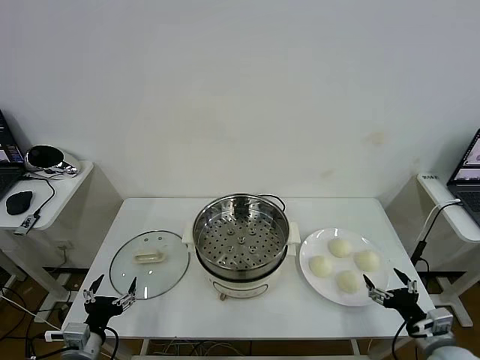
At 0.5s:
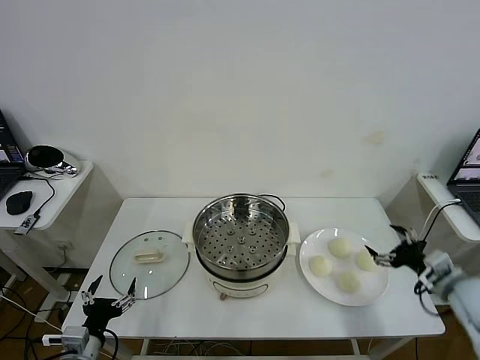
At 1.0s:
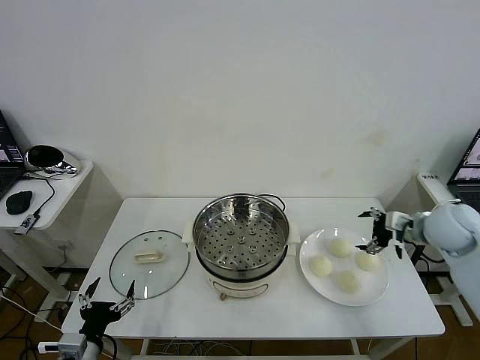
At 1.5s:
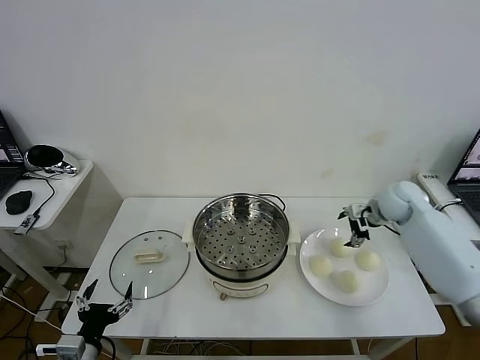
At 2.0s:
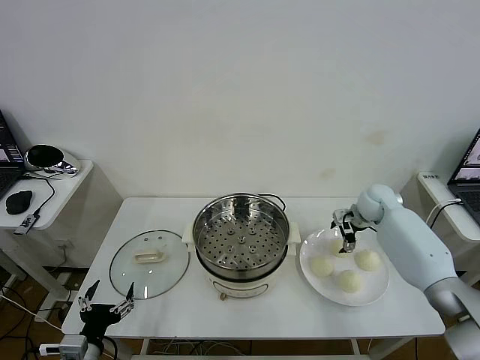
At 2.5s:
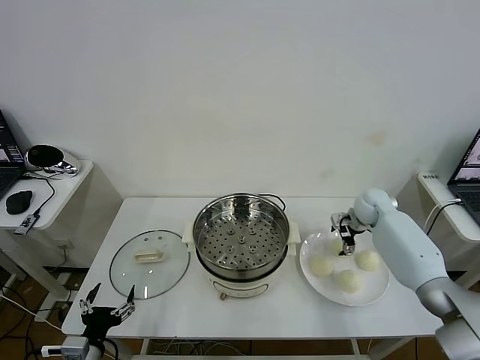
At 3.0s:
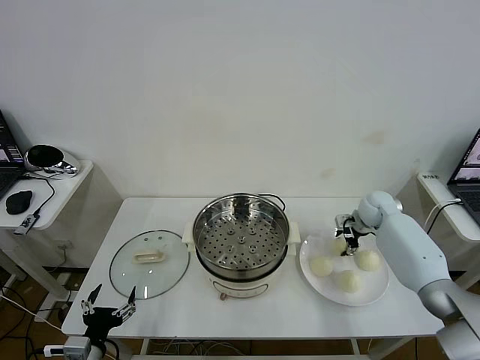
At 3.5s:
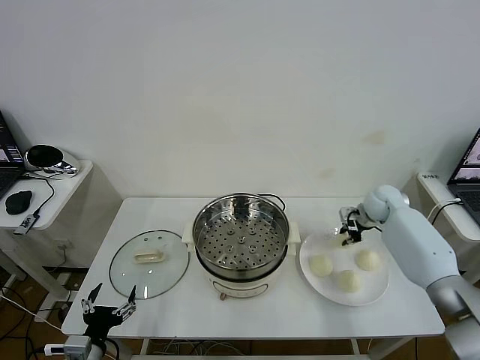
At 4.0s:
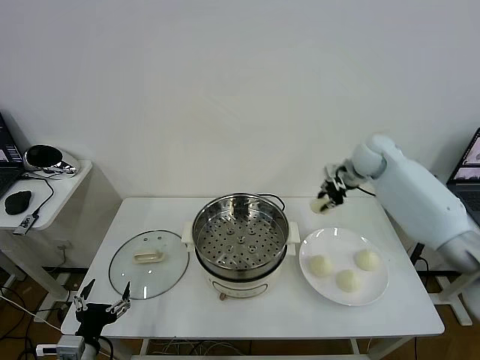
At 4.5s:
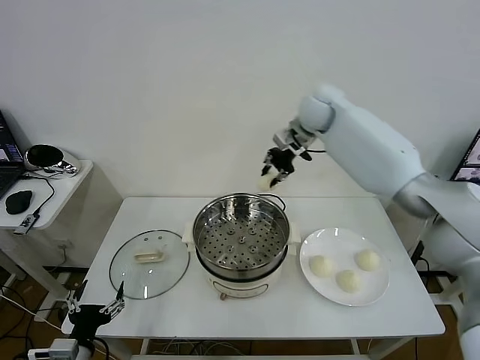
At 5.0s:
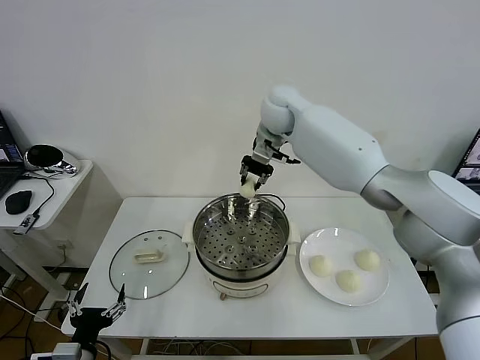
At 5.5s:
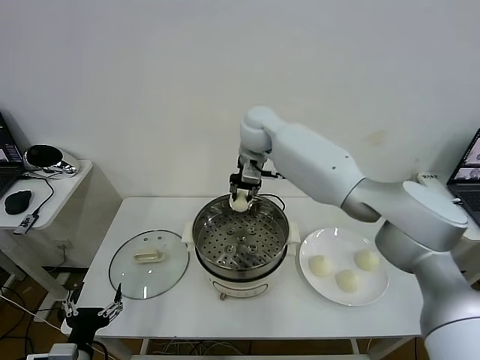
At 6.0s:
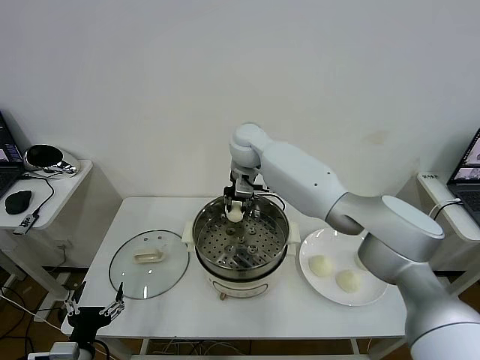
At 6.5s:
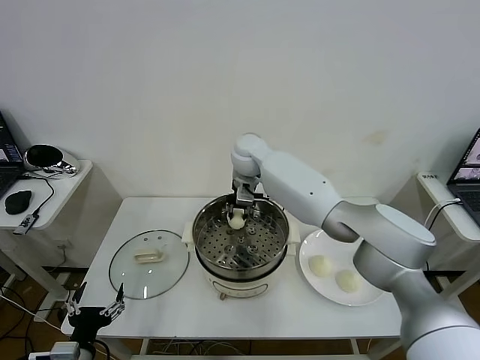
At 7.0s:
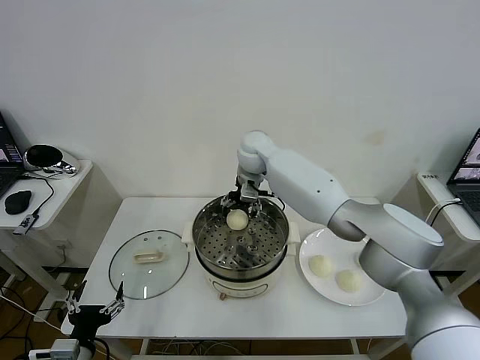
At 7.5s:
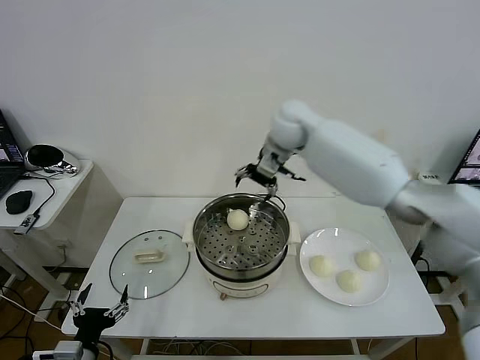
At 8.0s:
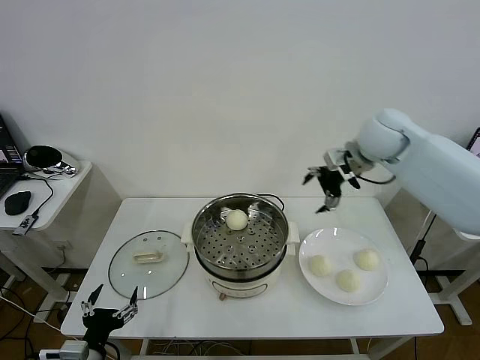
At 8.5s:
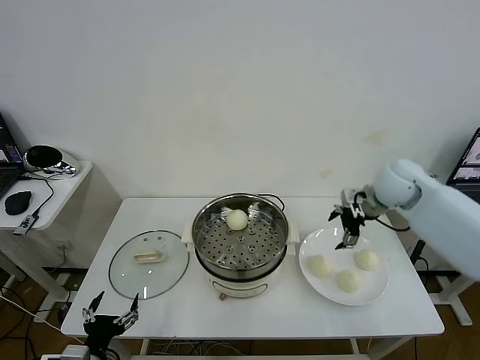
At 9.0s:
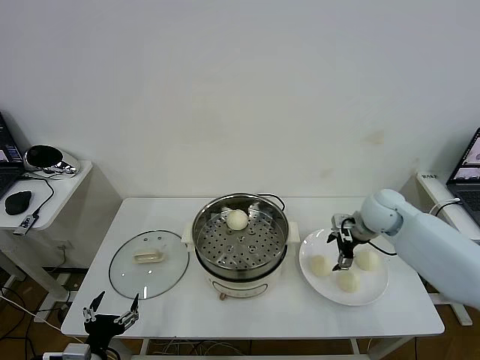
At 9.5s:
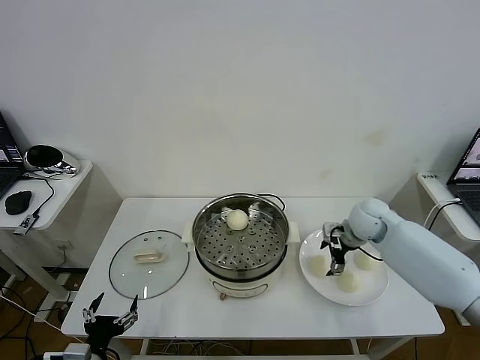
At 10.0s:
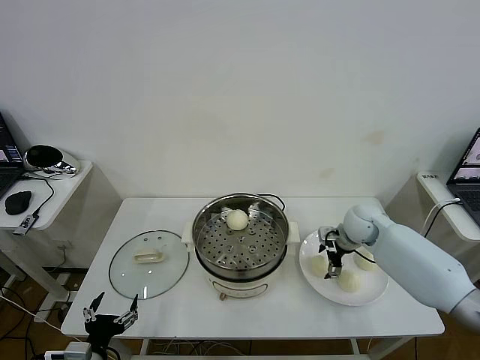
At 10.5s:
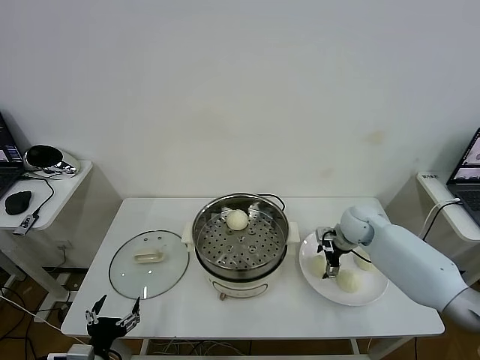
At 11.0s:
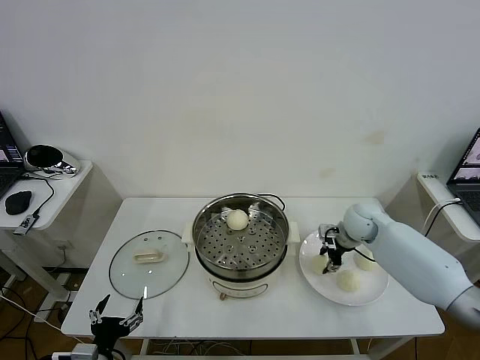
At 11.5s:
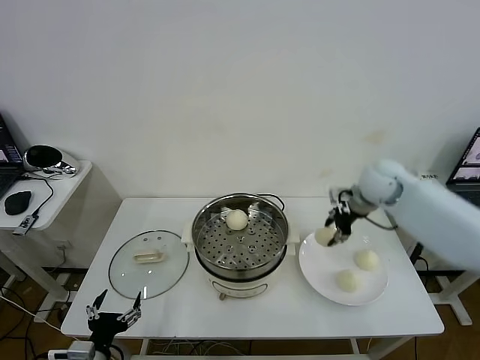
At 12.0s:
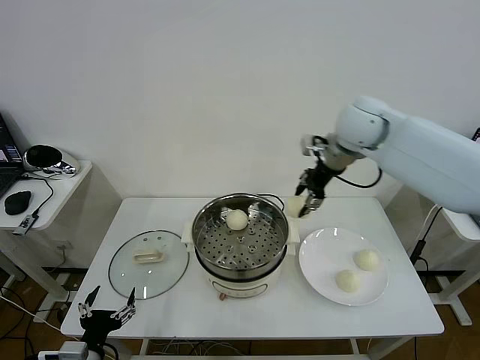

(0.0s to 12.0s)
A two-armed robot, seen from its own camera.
Task of the whole recording: take steamed baozi put them in steamer then cover it.
Step, 0.0s - 3.0s: Grasp the baozi in the plate with right gripper.
Step, 3.5s - 7.0s: Place the baozi on the steamer with right gripper.
Step, 7.5s - 10.5s: Grasp the baozi in the plate with right gripper.
2.0s - 4.0s: The right gripper travels upward and to the left by some 20 cm, and closes up.
4.0s - 6.0s: The right gripper is displaced to the left by some 25 cm.
6.0s - 8.0s: The right gripper travels to the right by some 30 cm, and opens up.
8.0s - 10.0s: The right gripper is displaced downward by approximately 20 cm.
10.0s - 12.0s: The right gripper shifts approximately 25 cm upward, and closes.

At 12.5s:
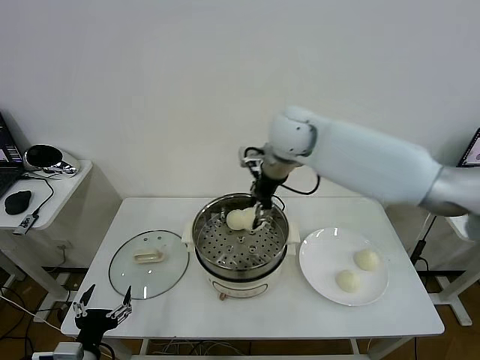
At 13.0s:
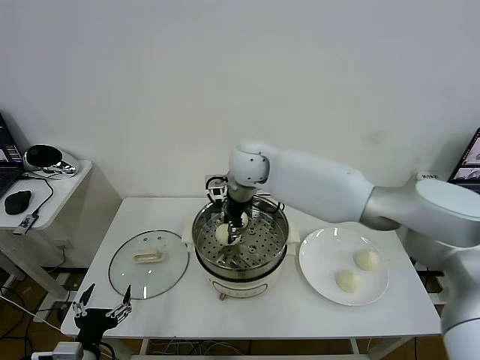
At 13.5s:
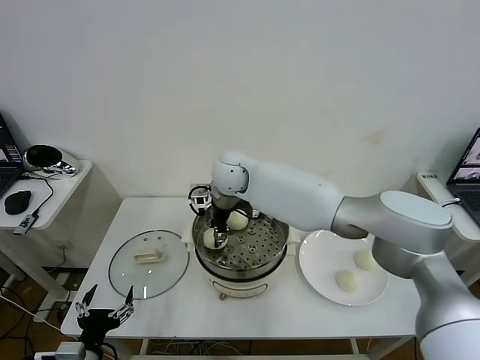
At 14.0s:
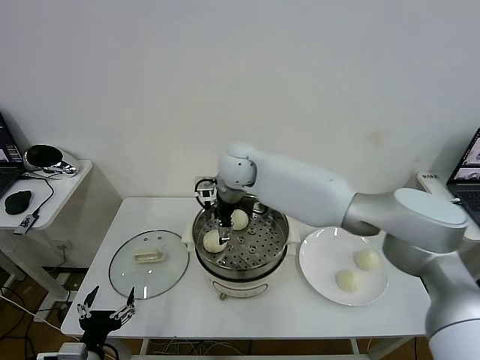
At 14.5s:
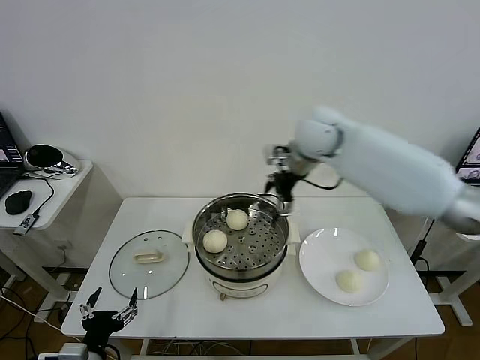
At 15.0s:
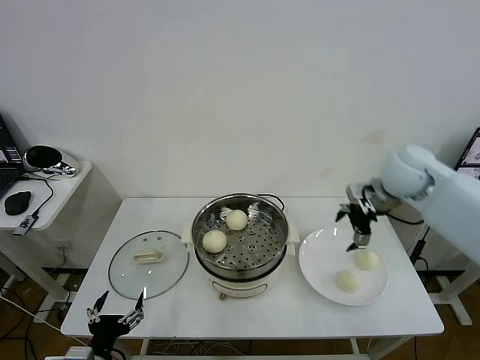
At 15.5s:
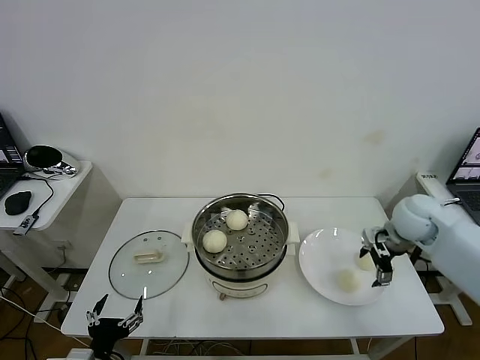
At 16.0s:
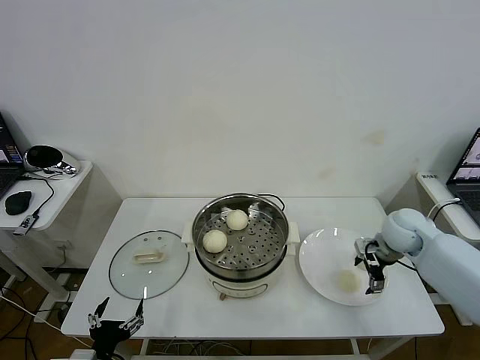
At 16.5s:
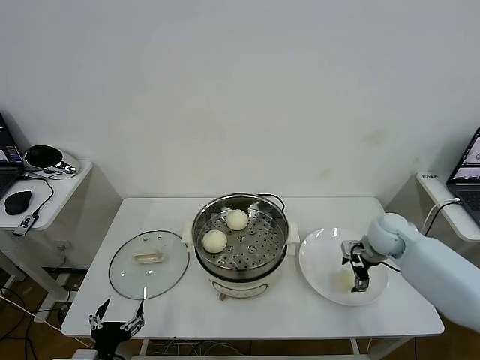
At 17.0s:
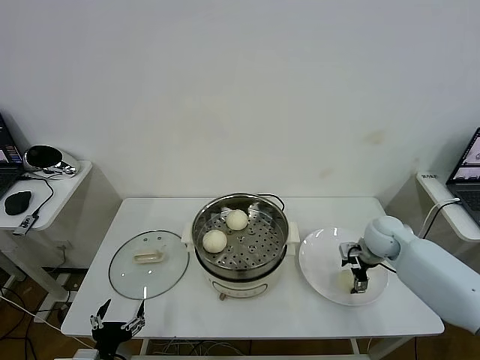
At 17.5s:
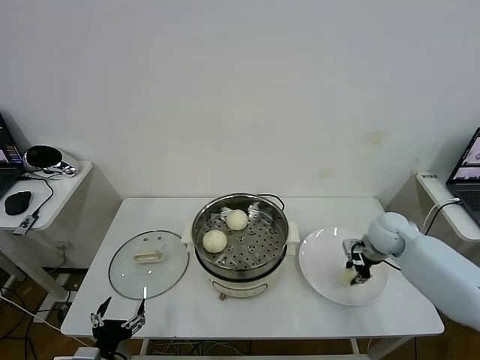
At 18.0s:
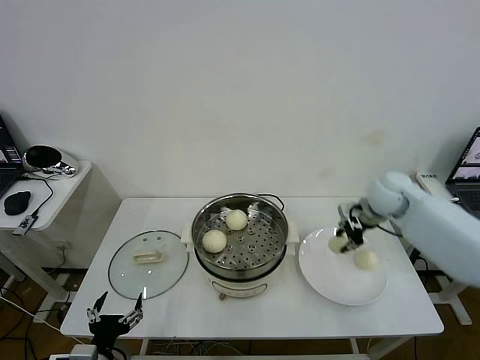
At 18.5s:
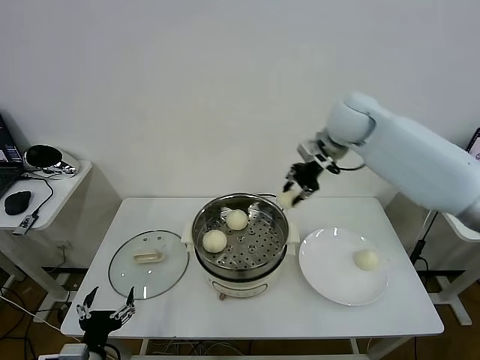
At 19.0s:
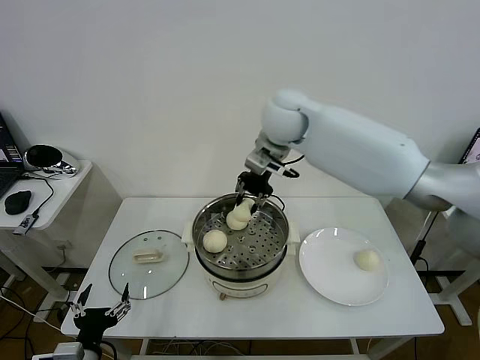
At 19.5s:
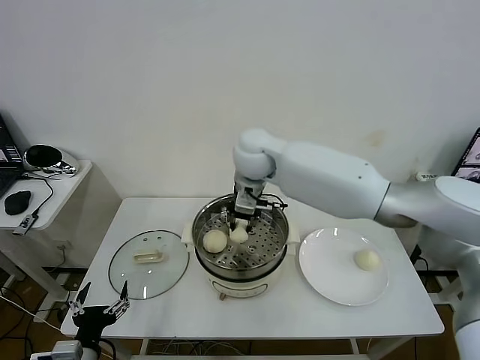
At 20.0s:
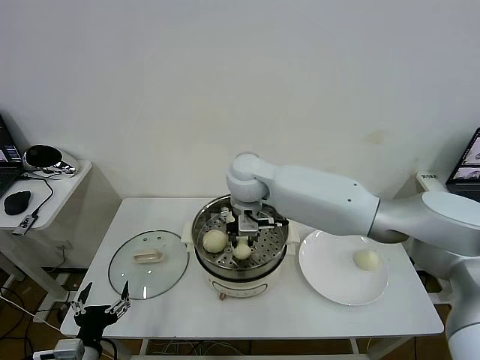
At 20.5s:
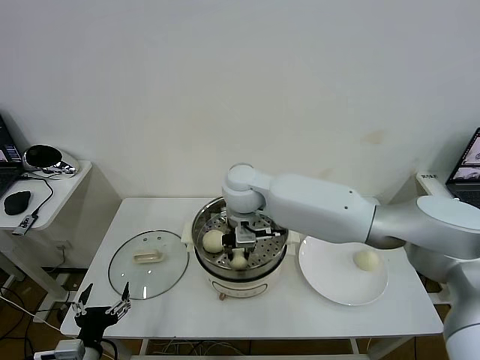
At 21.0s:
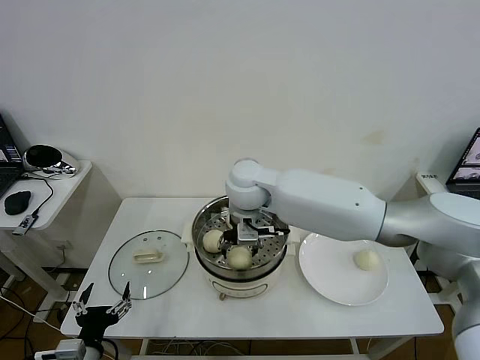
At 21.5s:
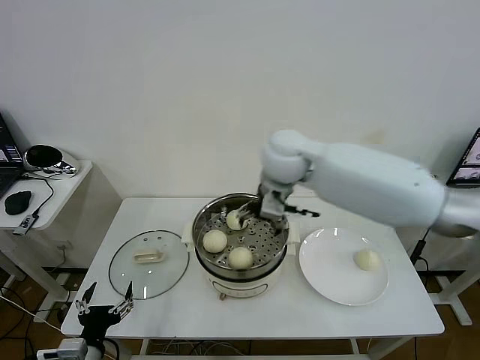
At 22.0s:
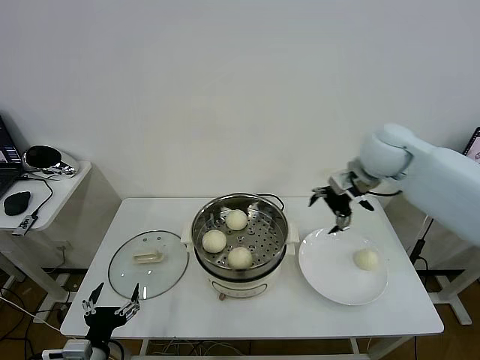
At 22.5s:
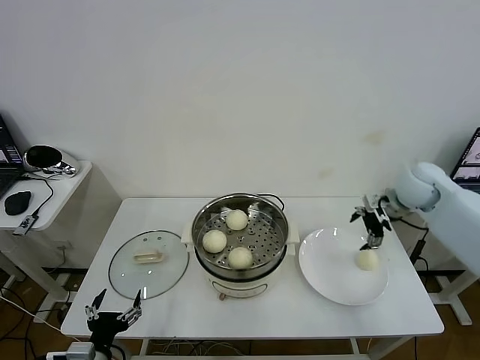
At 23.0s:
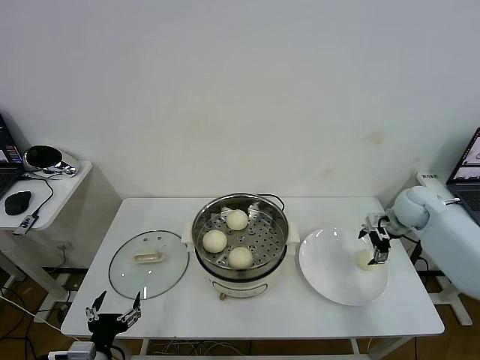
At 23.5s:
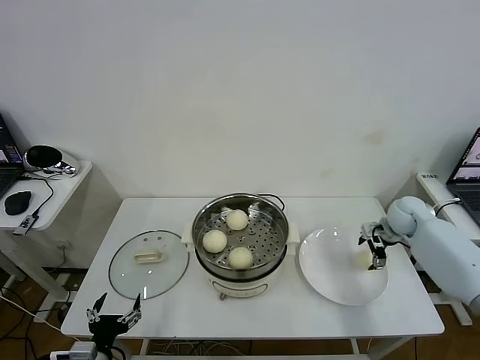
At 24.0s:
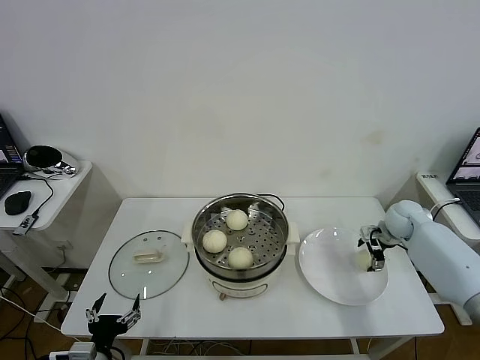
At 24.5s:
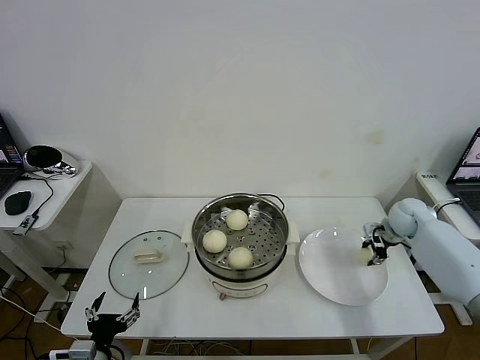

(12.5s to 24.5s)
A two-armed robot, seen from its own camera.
Task of the whole recording: take steamed baozi put them in steamer then cover it.
Step, 14.5s - 17.0s: Grasp the baozi in the plate with right gripper.
Step, 17.5s - 21.0s: Place the baozi on the steamer with right gripper.
Step, 21.5s - 24.0s: Grasp the baozi in the plate with right gripper.
12.5s - 14.5s: The right gripper heads to the right, covering some 10 cm, and opens.
14.5s - 16.5s: The right gripper is displaced downward and to the right by about 30 cm.
16.5s - 18.5s: The right gripper moves upward and to the left, some 30 cm, and closes.
18.5s - 20.5s: The right gripper is displaced to the left and downward by some 25 cm.
20.5s - 22.5s: The right gripper shifts roughly 40 cm to the right, and opens up.
22.5s - 24.5s: The right gripper shifts about 10 cm downward, and closes its fingers.

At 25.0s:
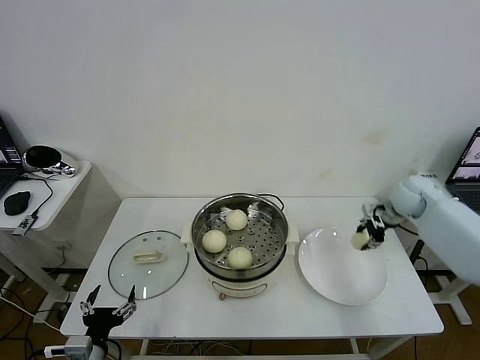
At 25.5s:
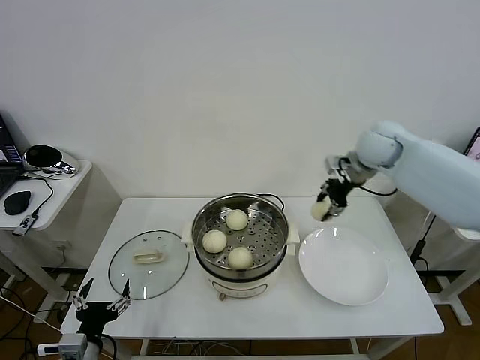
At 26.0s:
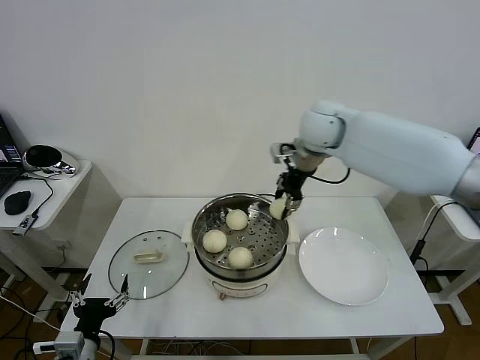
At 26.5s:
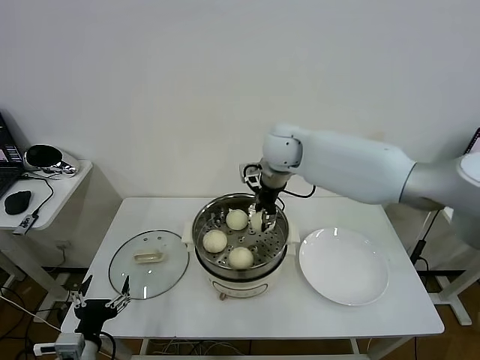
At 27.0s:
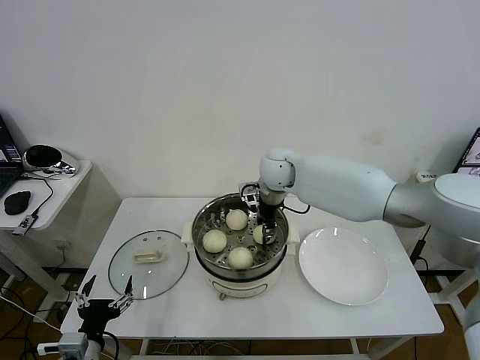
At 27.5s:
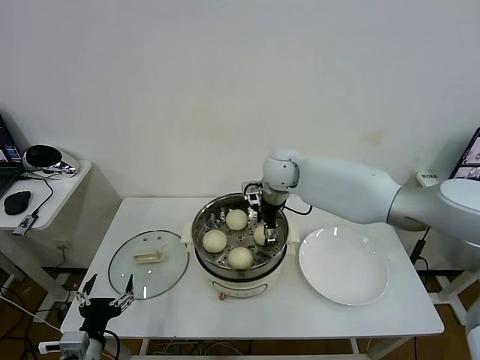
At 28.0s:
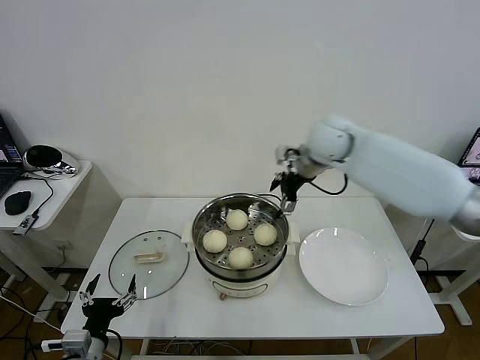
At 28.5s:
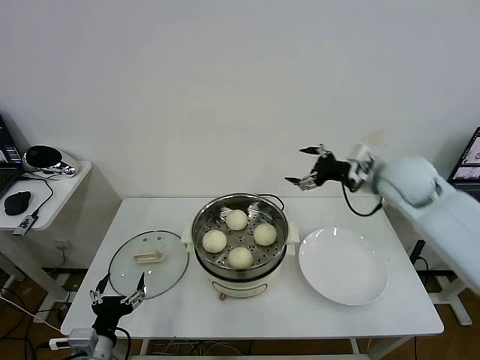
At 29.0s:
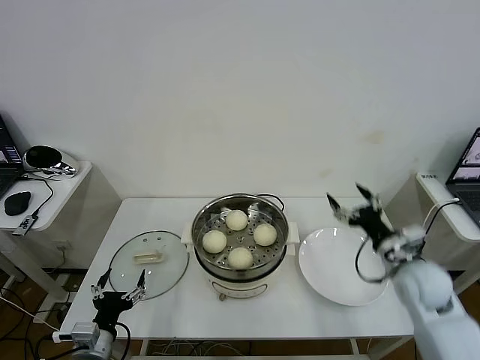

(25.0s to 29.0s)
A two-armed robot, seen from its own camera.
Task of the whole recording: take steamed baozi put them in steamer then cover it.
Step, 25.0s - 27.5s: Place the baozi on the steamer with right gripper.
25.0s - 27.0s: The right gripper travels to the left by roughly 30 cm.
27.0s - 29.0s: The right gripper is displaced to the right, backward and downward by roughly 40 cm, and opens its fingers.
